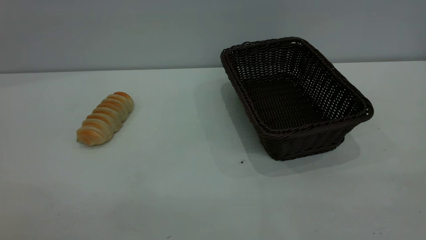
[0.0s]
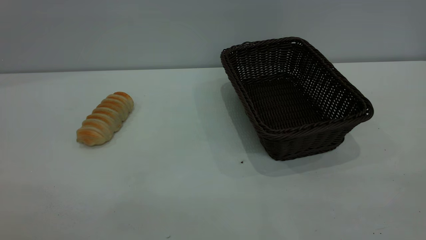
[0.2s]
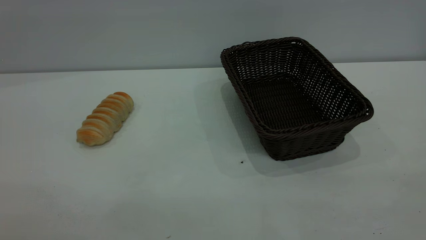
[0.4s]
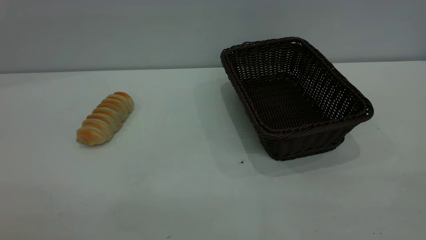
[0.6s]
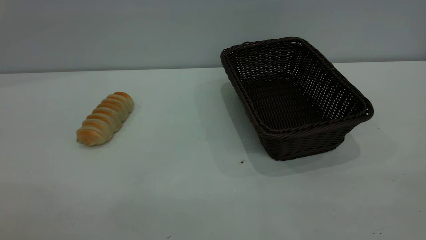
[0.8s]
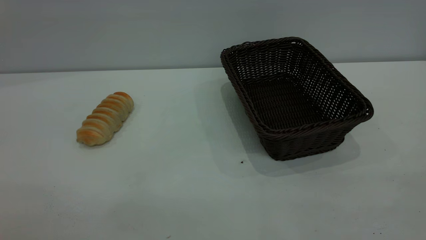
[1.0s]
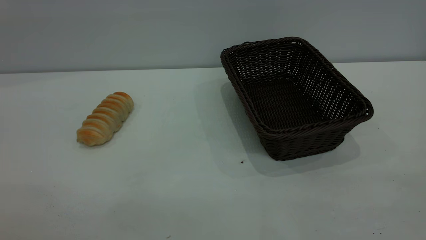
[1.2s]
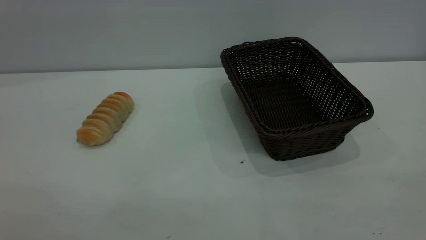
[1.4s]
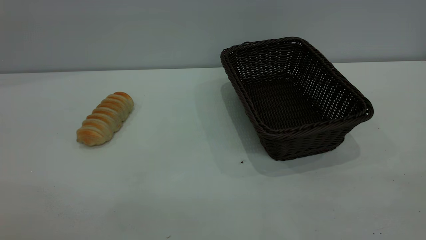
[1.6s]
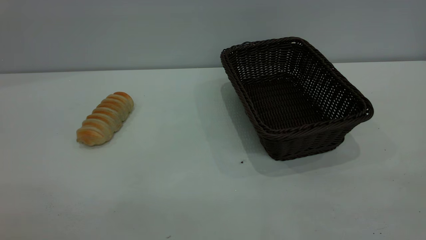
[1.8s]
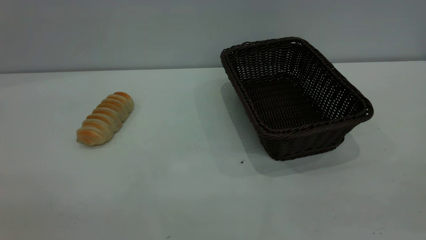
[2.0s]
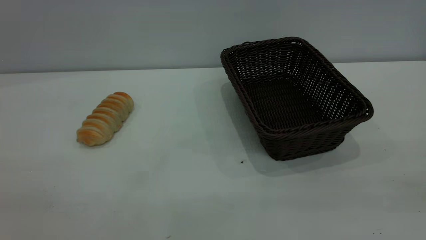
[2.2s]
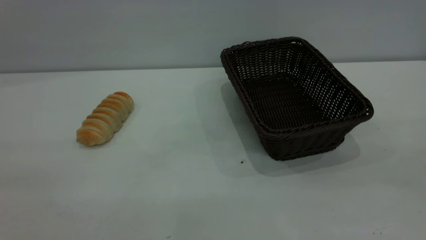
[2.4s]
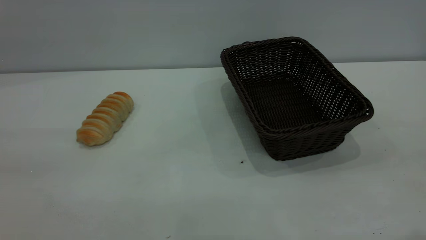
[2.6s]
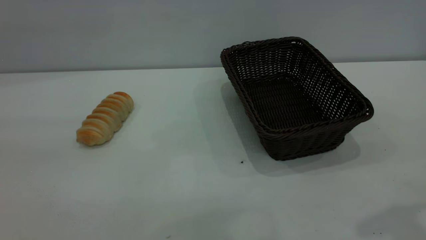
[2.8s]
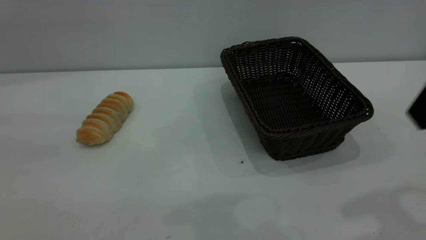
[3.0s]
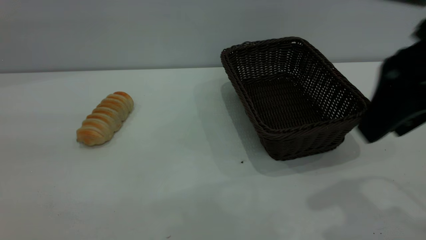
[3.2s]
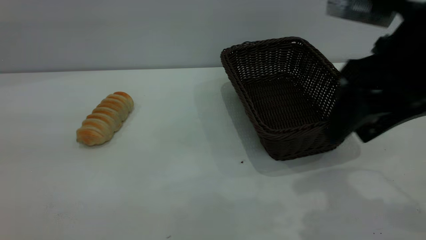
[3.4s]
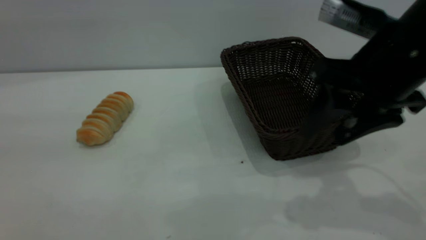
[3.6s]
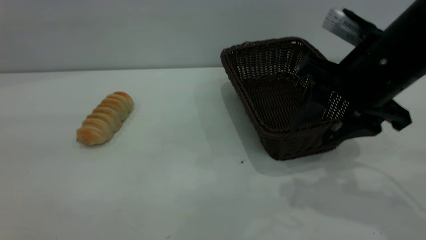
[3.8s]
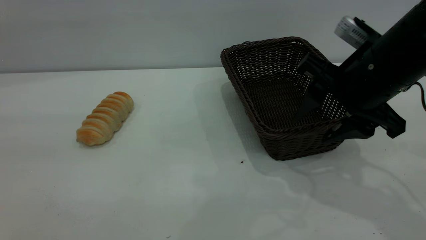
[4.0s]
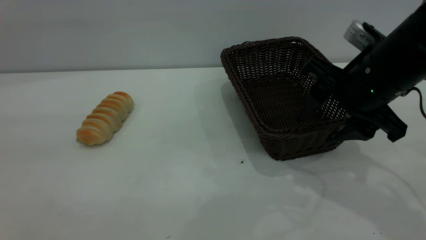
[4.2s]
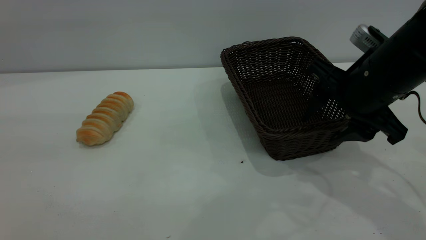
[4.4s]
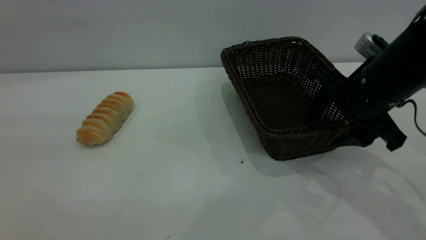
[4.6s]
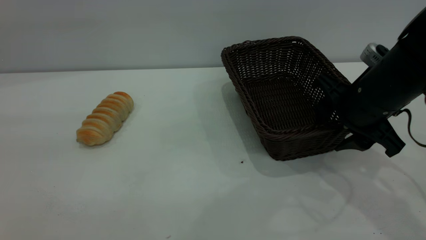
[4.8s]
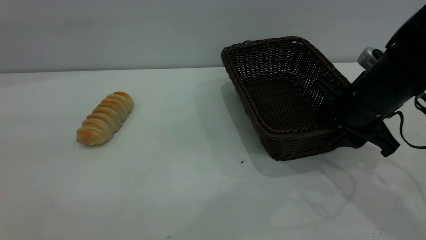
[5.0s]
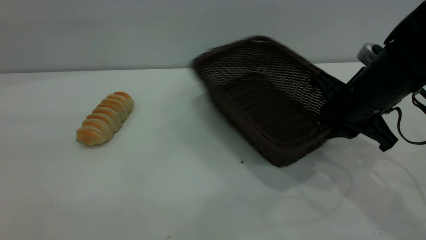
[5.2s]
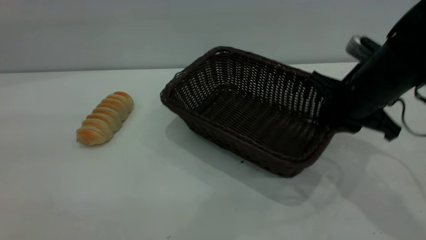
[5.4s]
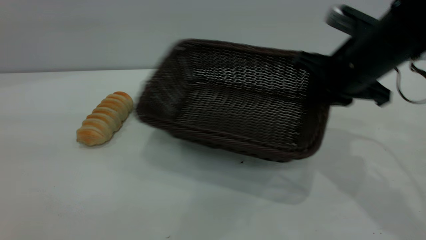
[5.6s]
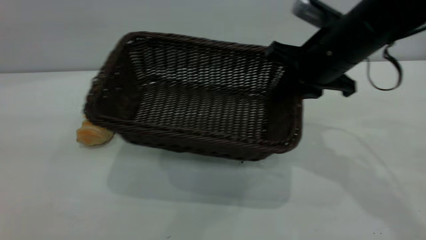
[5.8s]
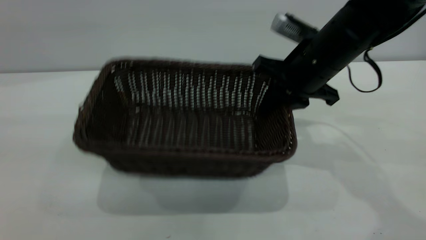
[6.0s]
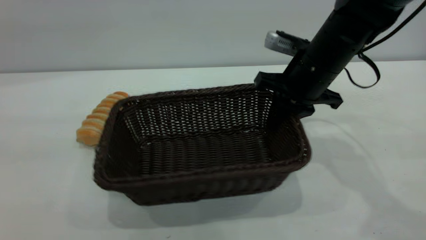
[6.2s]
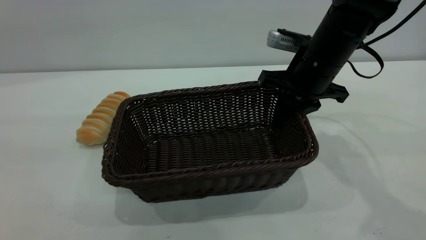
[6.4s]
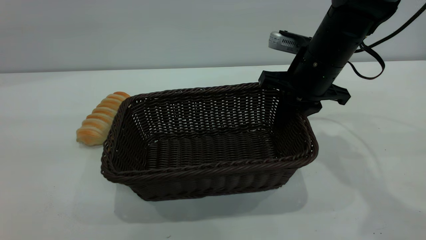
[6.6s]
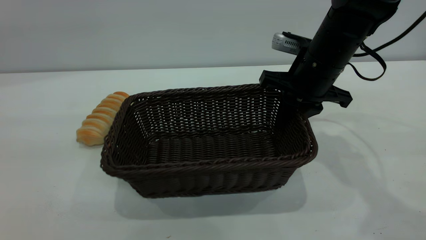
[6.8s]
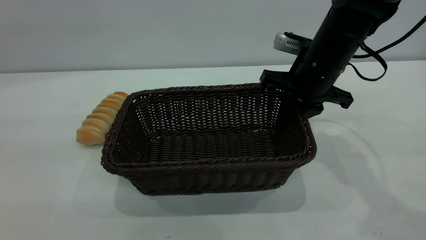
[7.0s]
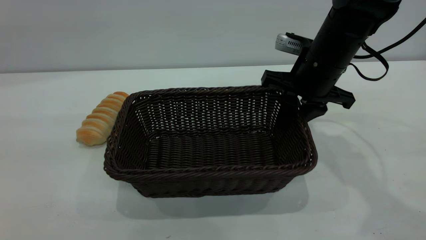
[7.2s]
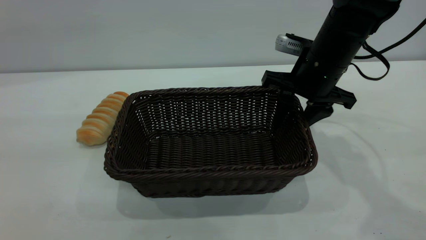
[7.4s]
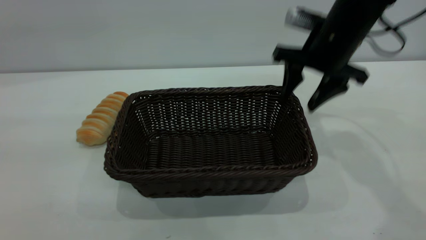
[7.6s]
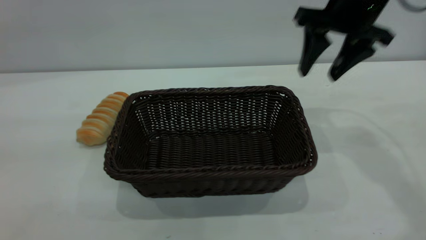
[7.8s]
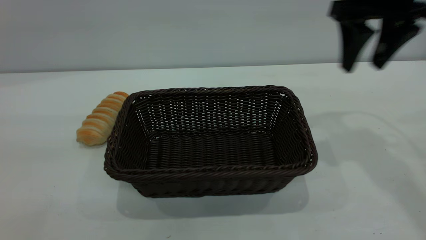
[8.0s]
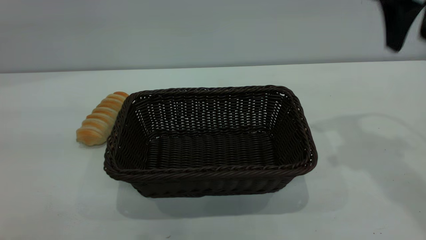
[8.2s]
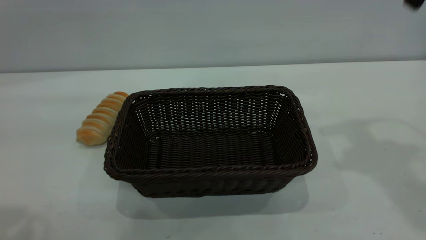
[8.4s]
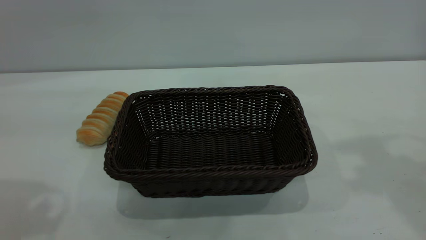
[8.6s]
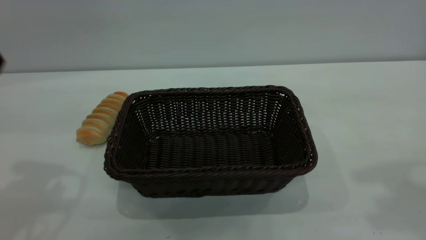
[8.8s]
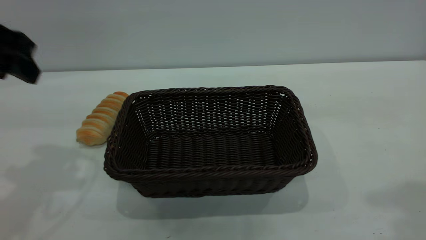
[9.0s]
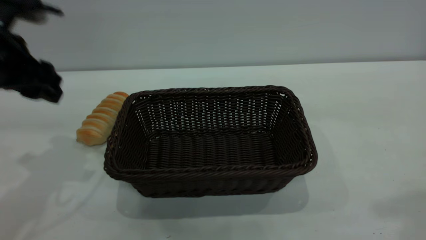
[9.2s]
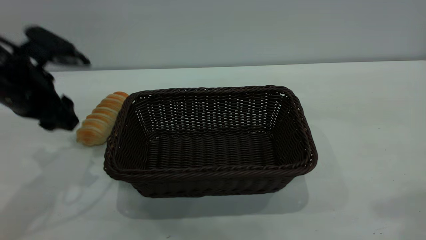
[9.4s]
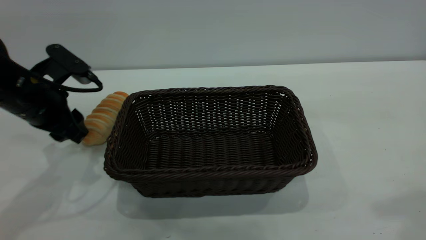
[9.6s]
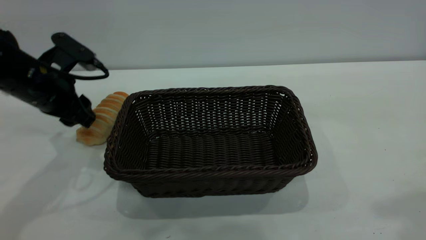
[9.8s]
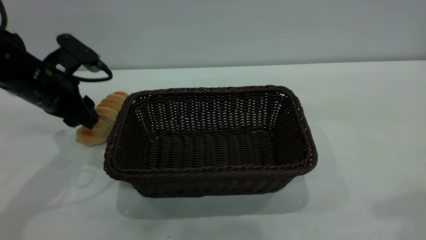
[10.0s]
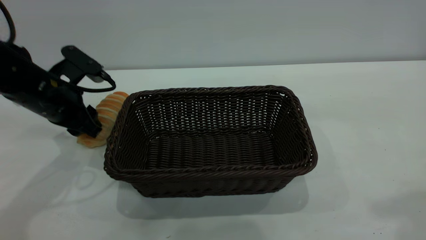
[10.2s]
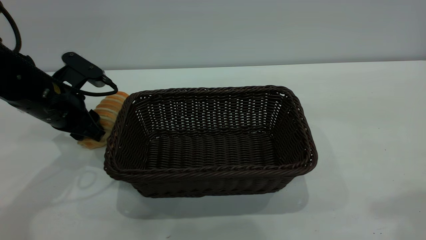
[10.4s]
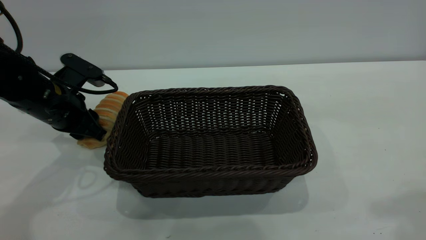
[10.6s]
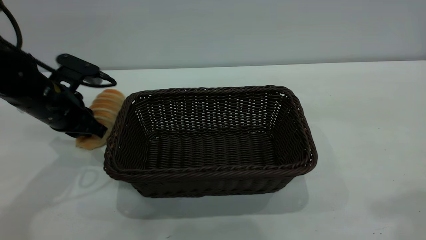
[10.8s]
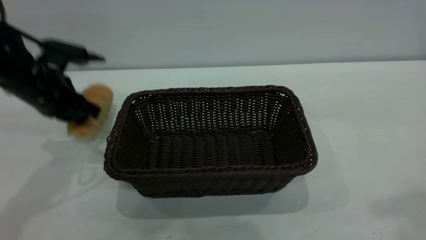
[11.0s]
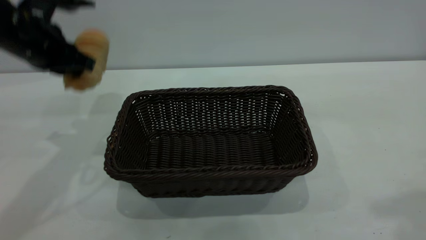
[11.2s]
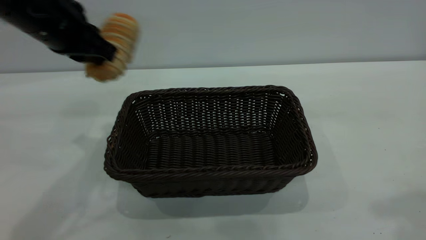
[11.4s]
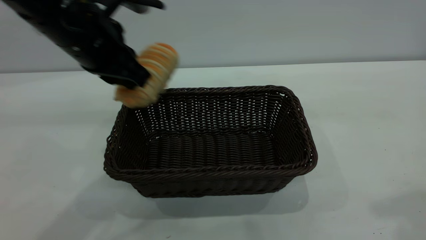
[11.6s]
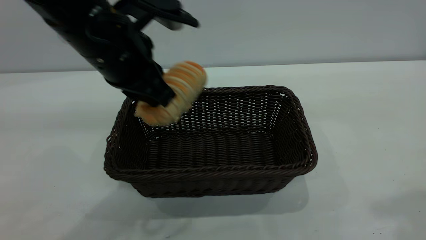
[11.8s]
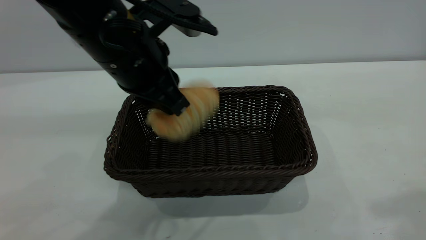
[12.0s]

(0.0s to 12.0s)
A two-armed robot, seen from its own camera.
Task of the whole recording: One hand grasps the black basket and places it in the middle of the table, while the other hand picks up the long bread and puts it into the black basket.
Step, 0.0s - 7.8s: Move the basket to the center of view.
0.0s - 1.6s: Both grippers stay put.
3.0s - 4.4s: The right gripper goes some 15 cm downward and forward.
4.4s - 6.0s: The right gripper travels forward by about 10 cm, and closes.
6.0s - 7.6s: The right gripper shifts by some 5 cm, and opens up.
7.6s - 9.0s: The left gripper moves forward and downward, some 25 cm; the right gripper is displaced upward, backward and to the right by about 30 cm.
9.0s - 10.4s: The left gripper shifts approximately 15 cm downward and forward.
10.4s - 12.0s: The left gripper is displaced to the right, upward and backward by some 25 cm, and closes up.

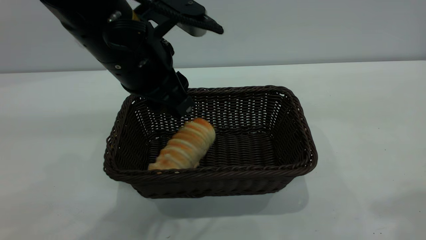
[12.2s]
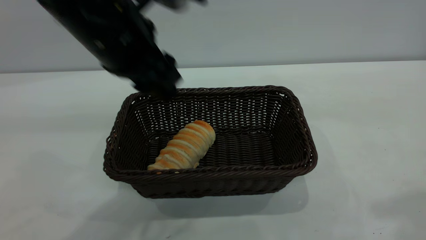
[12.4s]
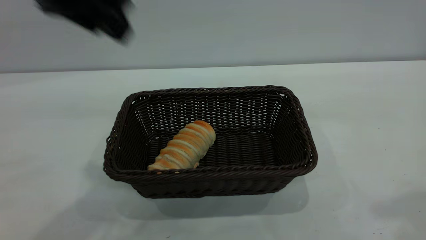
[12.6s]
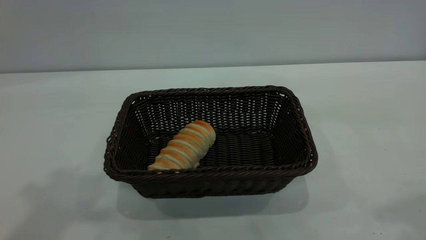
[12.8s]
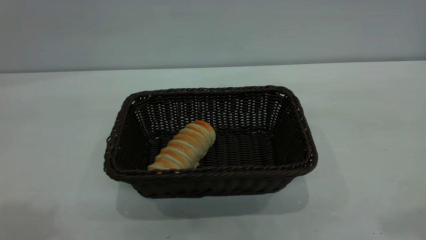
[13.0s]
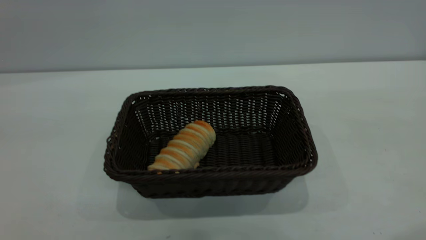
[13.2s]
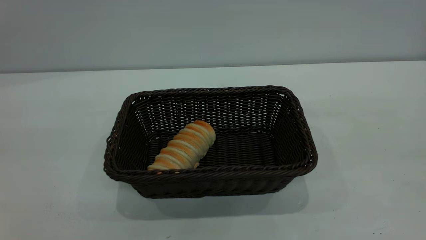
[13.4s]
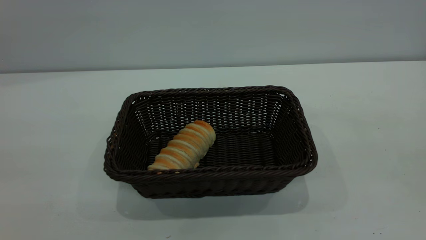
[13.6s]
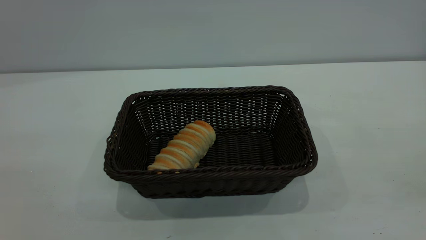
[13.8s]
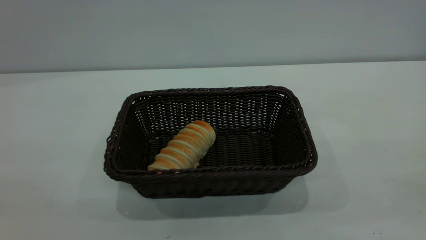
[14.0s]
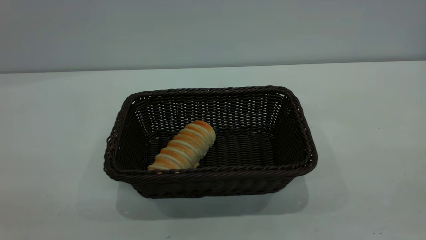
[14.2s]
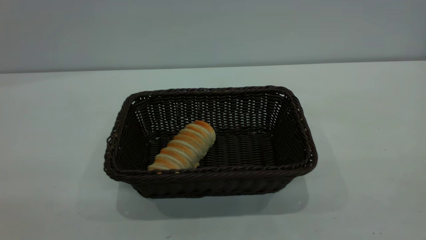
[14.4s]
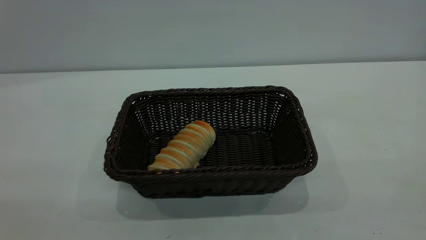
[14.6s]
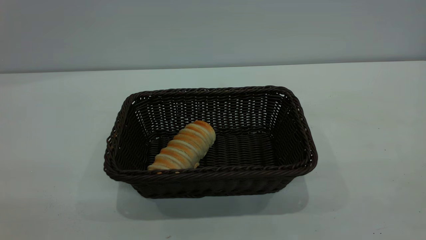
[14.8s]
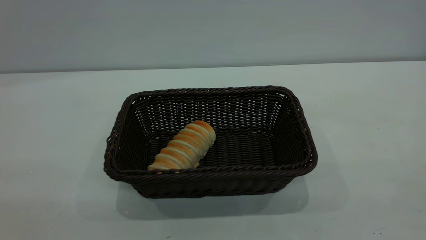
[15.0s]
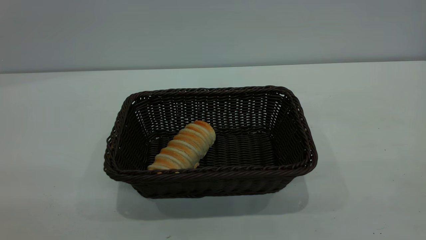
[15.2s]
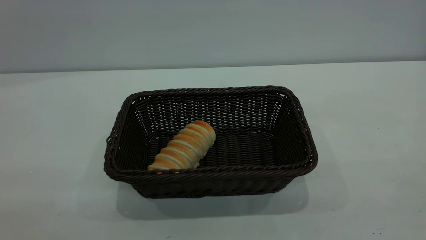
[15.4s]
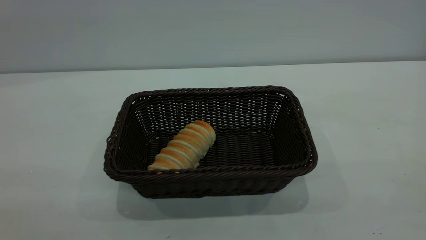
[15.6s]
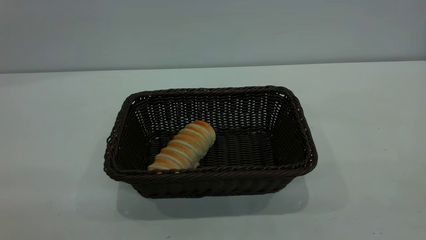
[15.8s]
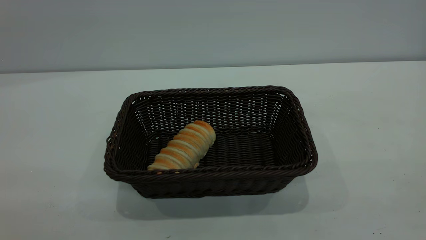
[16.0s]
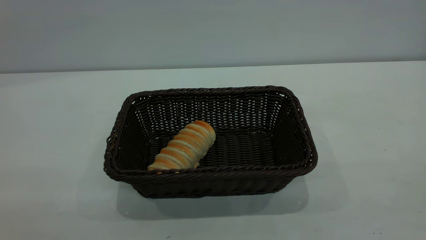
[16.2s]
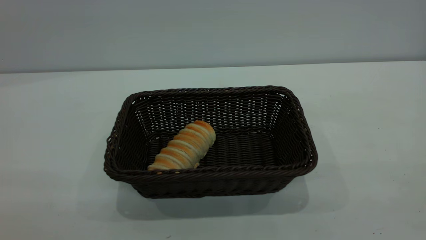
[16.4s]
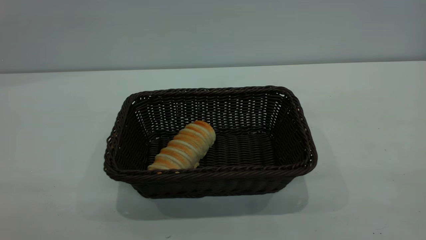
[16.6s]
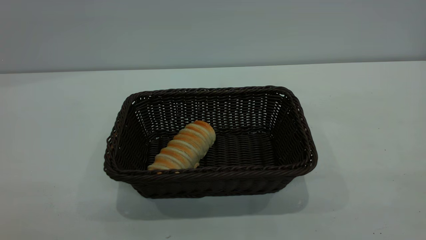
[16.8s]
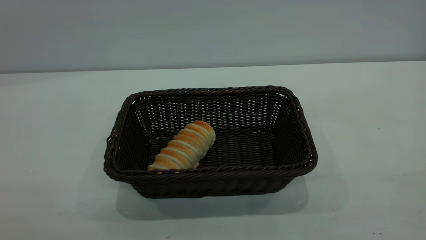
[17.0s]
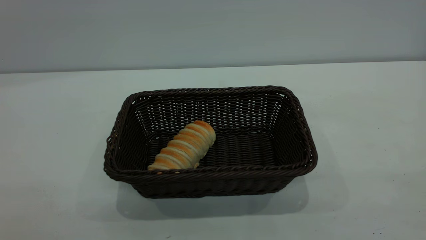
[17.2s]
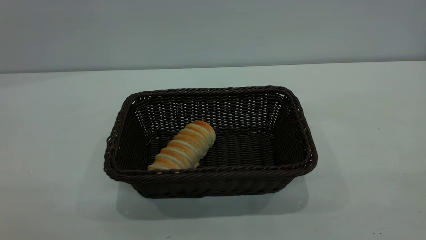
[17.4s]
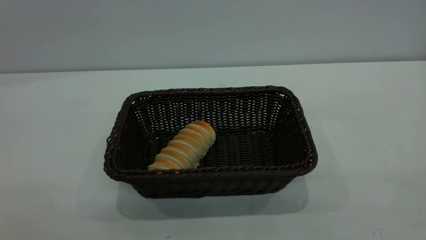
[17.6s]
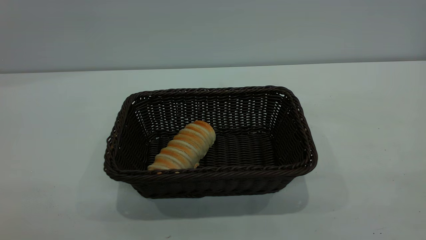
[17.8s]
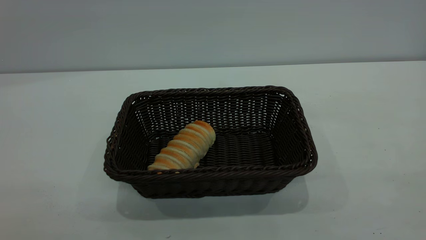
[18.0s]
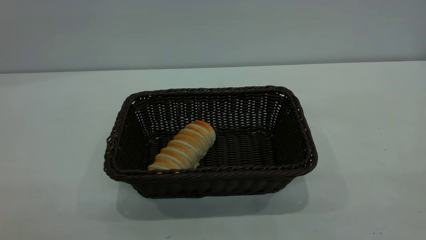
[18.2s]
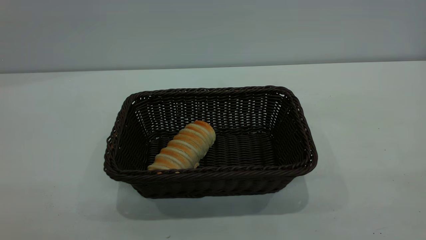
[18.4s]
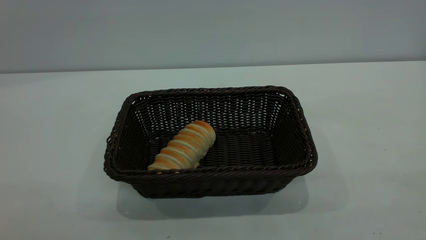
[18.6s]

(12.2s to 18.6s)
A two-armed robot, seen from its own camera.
Task of the whole recording: One hand grasps the black basket and places it in the middle of the table, while the other hand picks up the long bread and puts it into the black basket.
12.2s - 13.8s: The left gripper shifts approximately 35 cm backward, to the left and upward. The right gripper shifts approximately 15 cm backward and downward.
